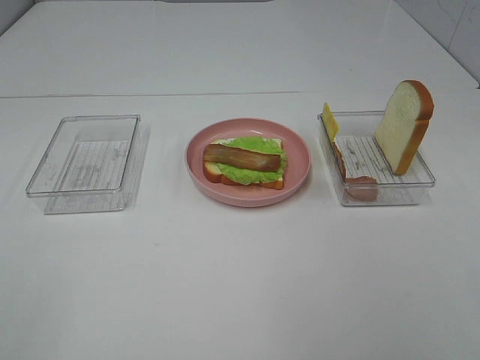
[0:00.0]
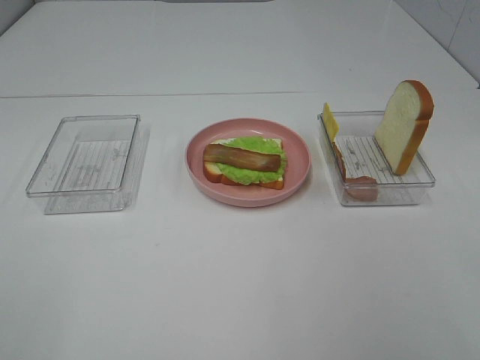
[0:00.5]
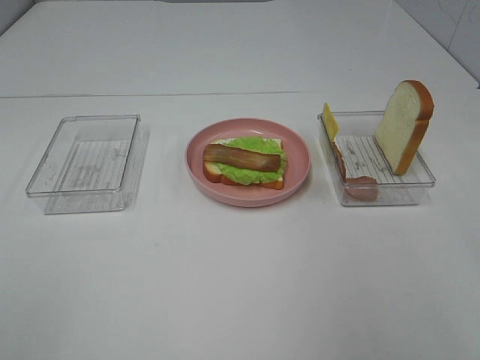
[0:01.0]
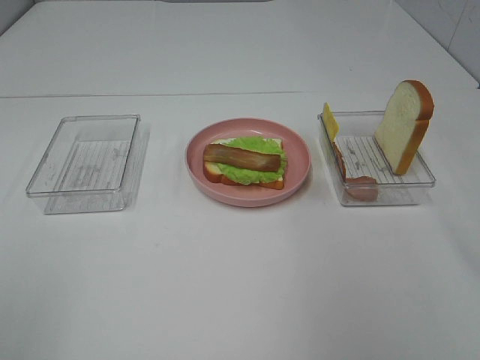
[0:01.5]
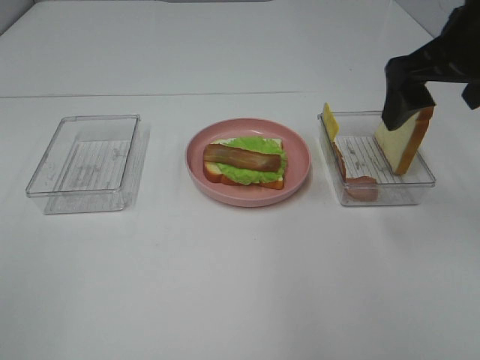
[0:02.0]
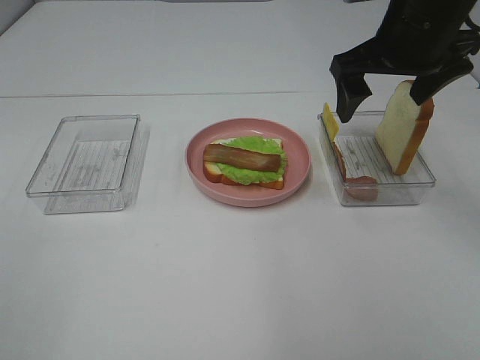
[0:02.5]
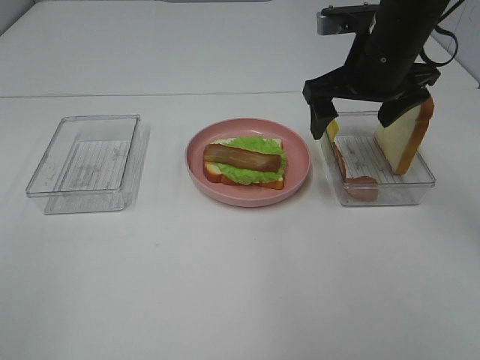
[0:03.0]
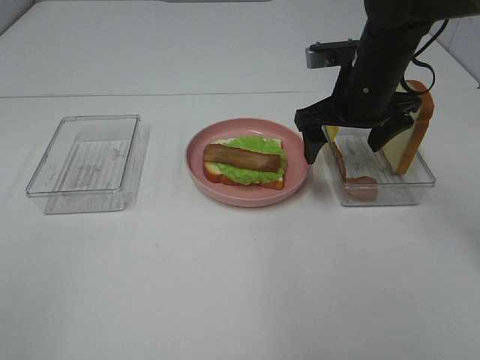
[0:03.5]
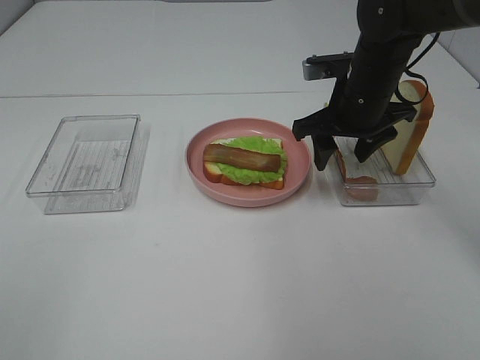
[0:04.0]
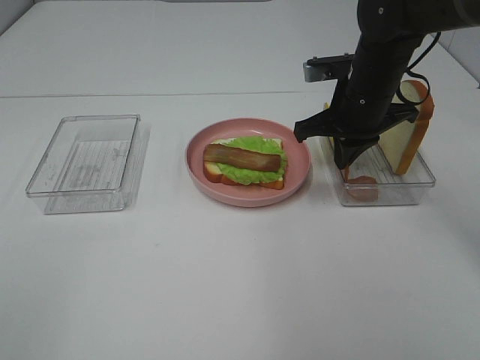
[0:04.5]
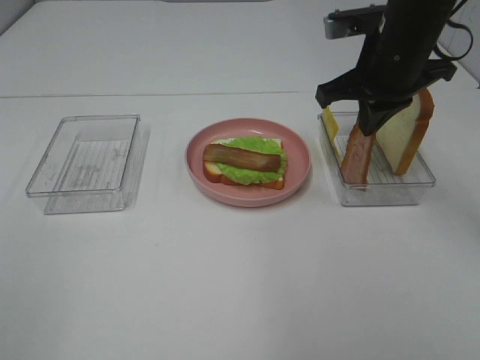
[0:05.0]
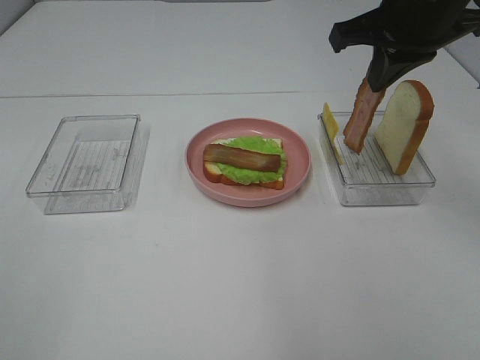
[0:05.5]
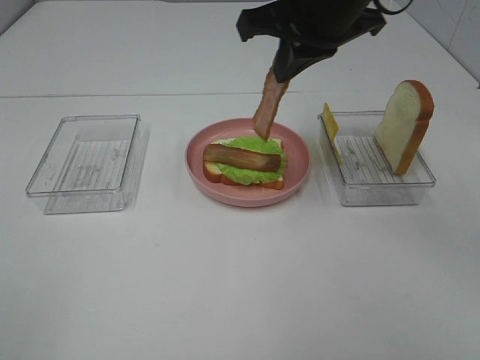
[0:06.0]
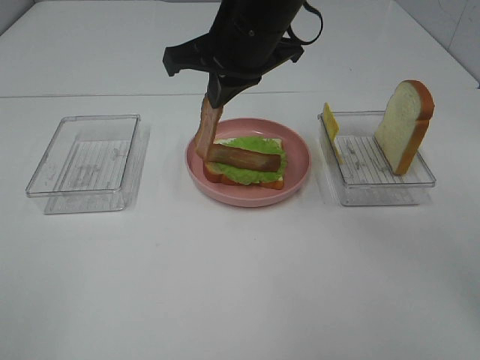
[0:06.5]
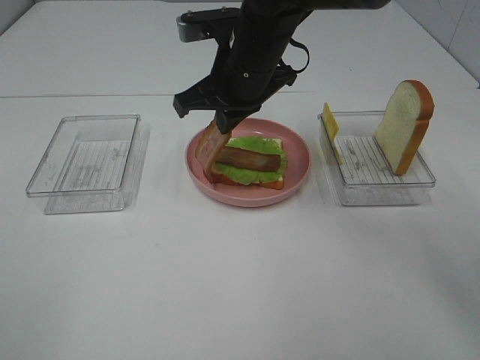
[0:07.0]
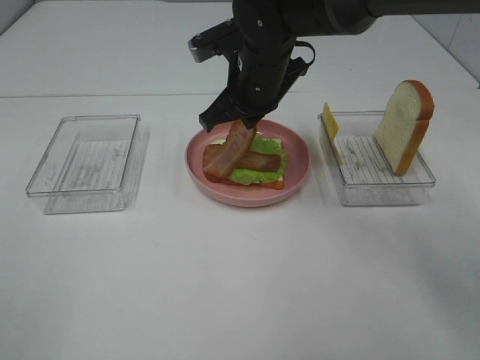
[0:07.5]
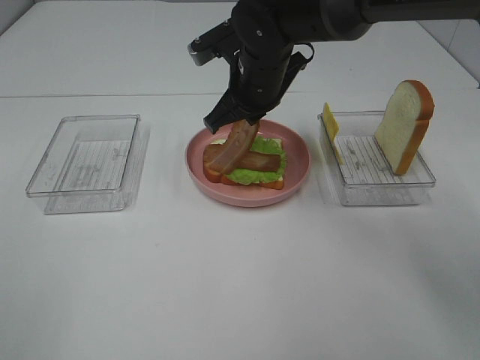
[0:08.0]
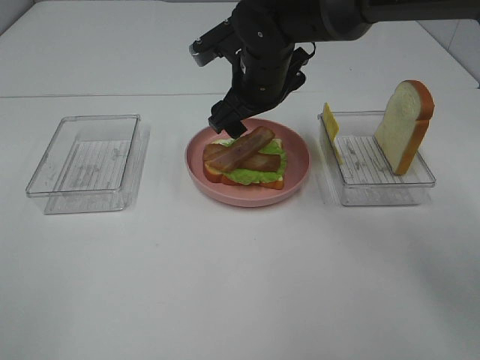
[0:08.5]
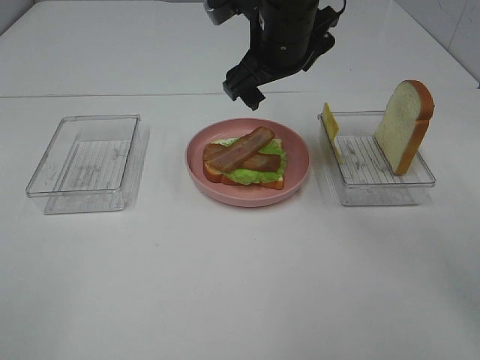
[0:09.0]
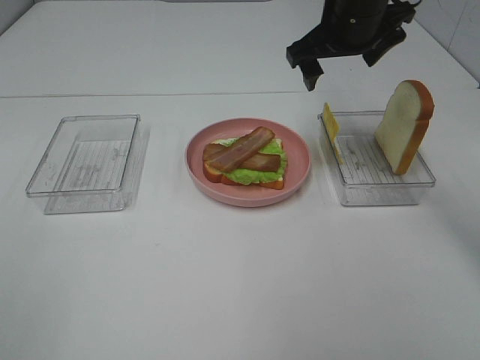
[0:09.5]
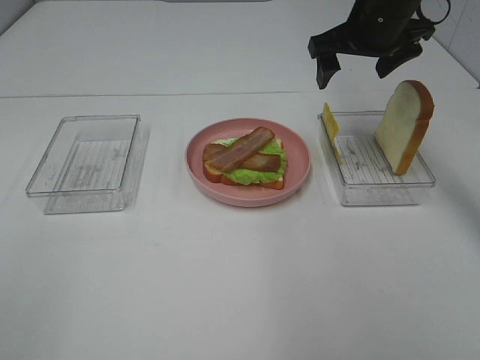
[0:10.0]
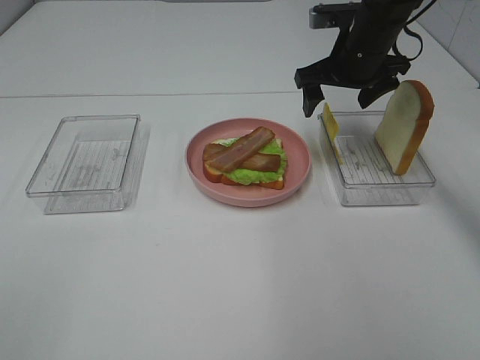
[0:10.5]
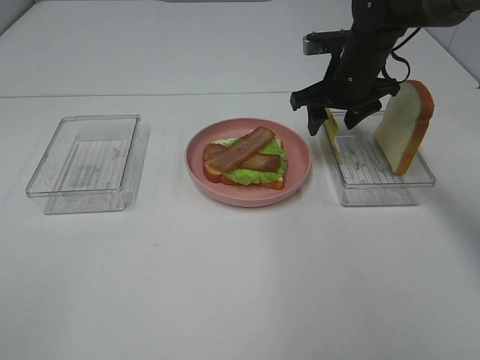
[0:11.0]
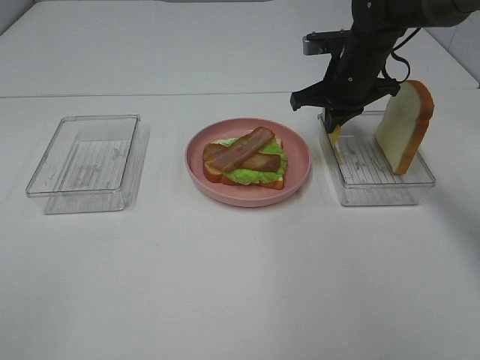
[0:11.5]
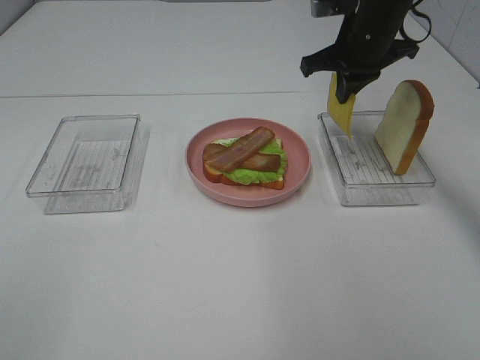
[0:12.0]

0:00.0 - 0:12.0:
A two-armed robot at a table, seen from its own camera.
Task of the whole recording: Make sandwiches.
Step, 0:00.0 - 0:04.0: Right hand:grab the bacon.
Step, 0:04.5 - 0:08.0: Right hand:place bacon on bacon.
Step, 0:08.5 - 0:11.5: Right hand:grab the cheese slice.
0:00.0 - 0:02.0: The right gripper goes about 30 cm forward.
0:02.0 - 0:04.0: The right gripper shifts roughly 15 cm downward, forward and to the left, and closes.
0:04.0 - 0:06.0: The right gripper heads upward and to the left, covering approximately 15 cm, and closes.
0:06.0 - 0:08.0: The right gripper goes roughly 15 cm downward, to the left and forward.
0:08.0 - 0:10.0: The right gripper heads to the right and upward, covering about 15 cm, and opens.
0:10.0 - 0:12.0: The right gripper travels downward and back again, approximately 10 cm each way, and closes up.

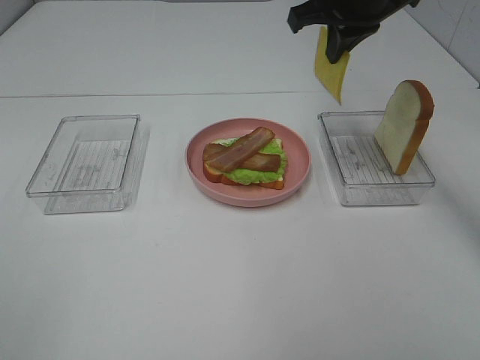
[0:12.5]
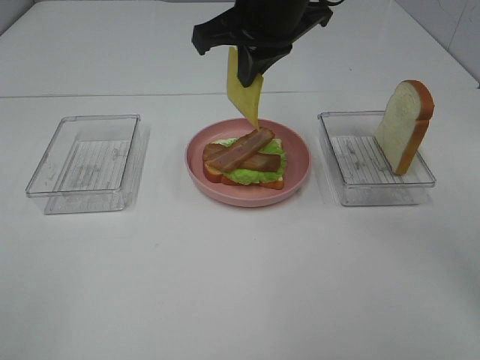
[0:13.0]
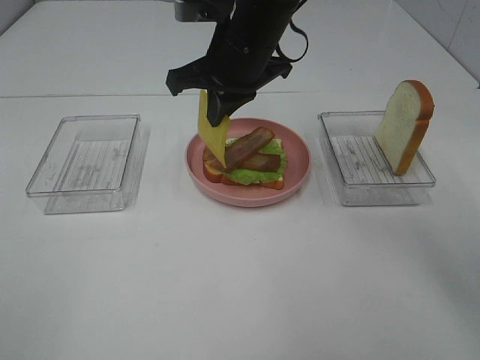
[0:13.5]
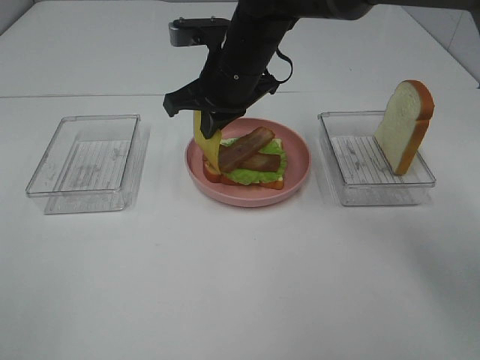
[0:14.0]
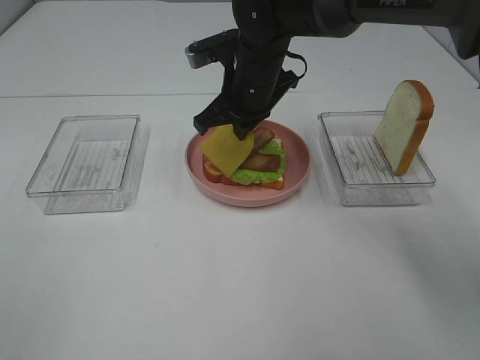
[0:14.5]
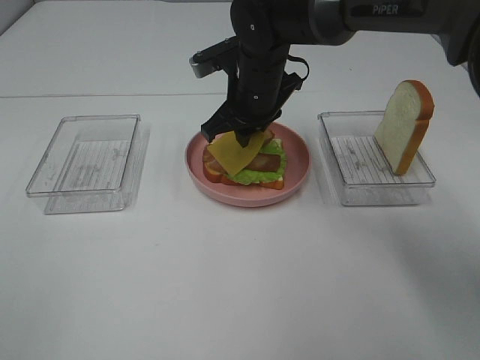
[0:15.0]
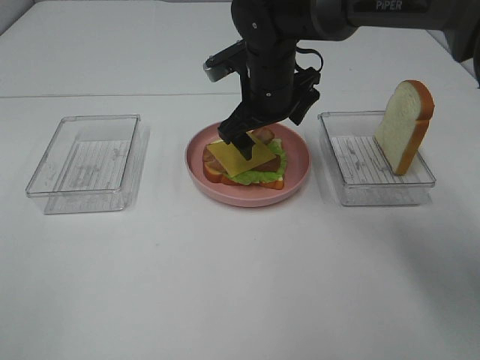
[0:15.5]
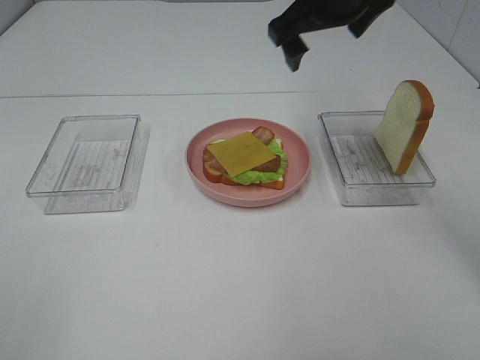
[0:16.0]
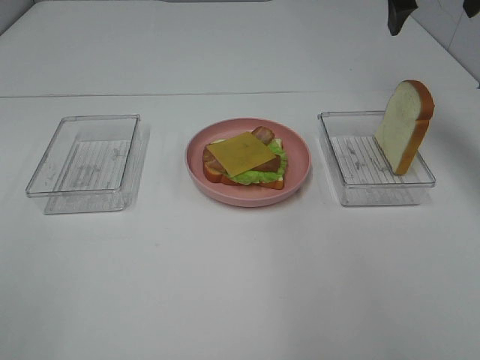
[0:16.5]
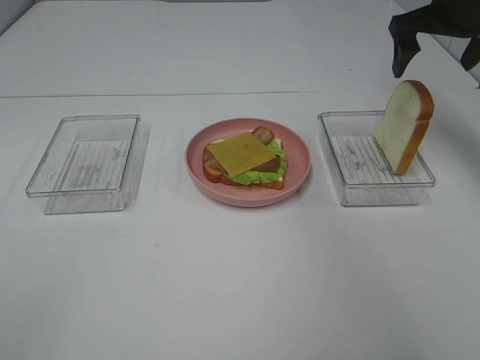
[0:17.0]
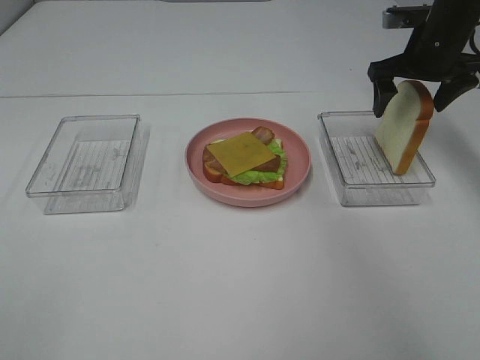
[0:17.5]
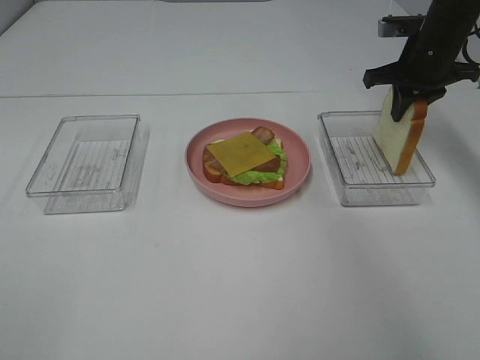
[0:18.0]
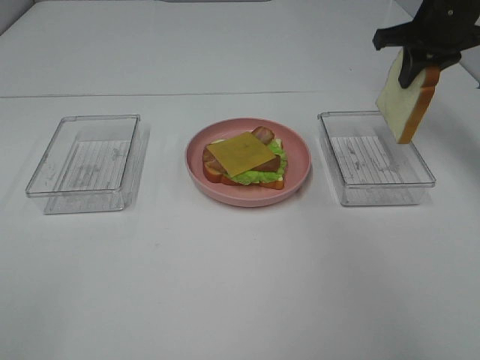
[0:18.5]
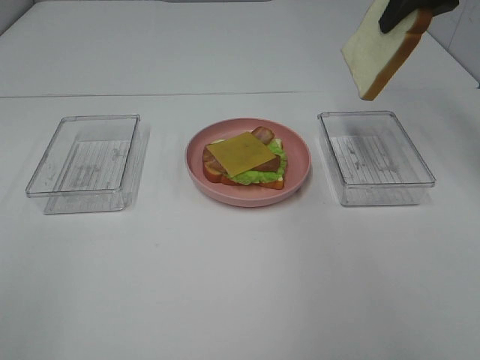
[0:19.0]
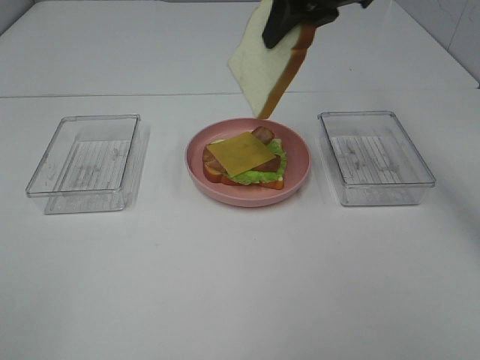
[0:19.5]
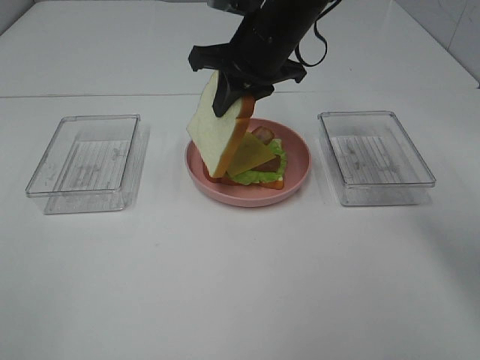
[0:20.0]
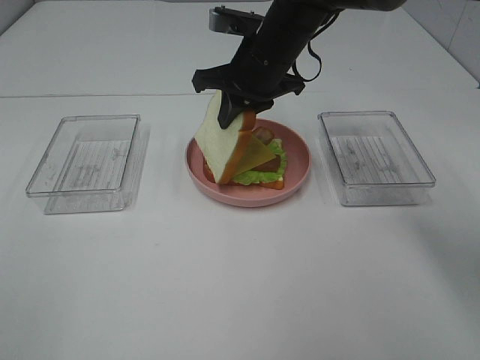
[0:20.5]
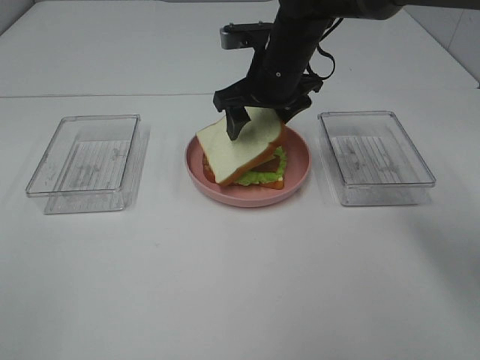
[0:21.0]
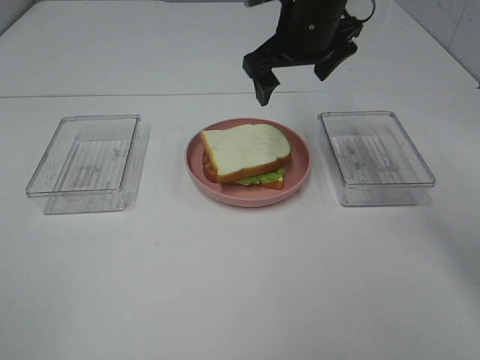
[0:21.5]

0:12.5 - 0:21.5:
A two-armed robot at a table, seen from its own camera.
Task of the whole recording: Make sandwiches.
Step, 0:12.5 - 0:15.0: Right hand:place the cheese slice on top of the bacon.
Step, 0:15.5 - 0:18.0: Right hand:grab the bread slice.
Step, 0:18.5 - 0:21.0: Right hand:place the bread slice on the cheese slice.
0:12.5 - 0:14.5: The right gripper is displaced downward and to the left by approximately 15 cm.
0:14.5 - 0:17.0: The right gripper travels to the right by roughly 25 cm, and opens up.
0:17.0 - 0:19.5: The right gripper goes some 15 cm to the left, and closes up.
0:19.5 - 0:21.5: The right gripper shifts some 5 cm downward, and opens its fingers.

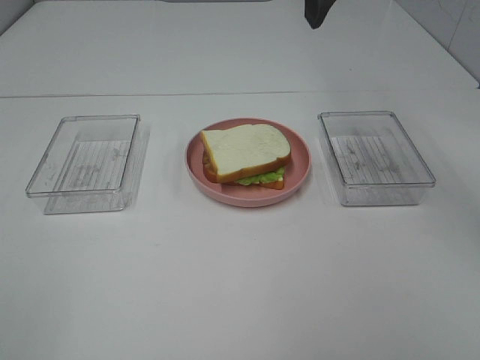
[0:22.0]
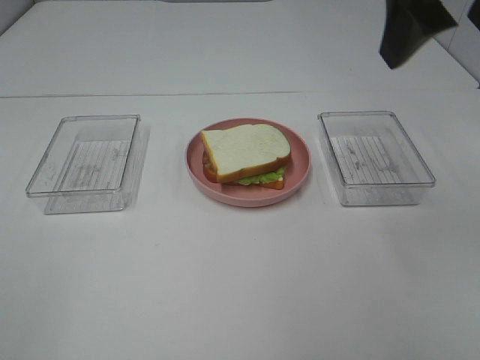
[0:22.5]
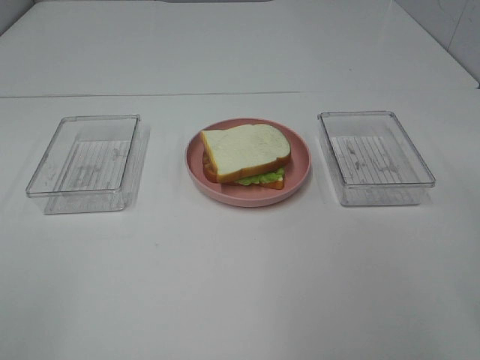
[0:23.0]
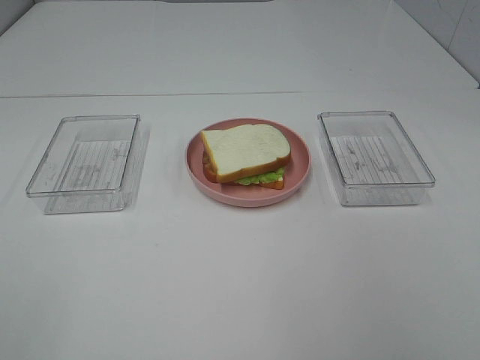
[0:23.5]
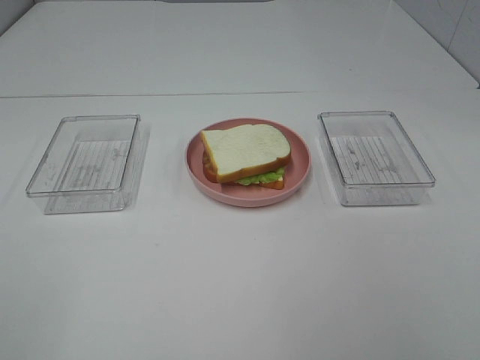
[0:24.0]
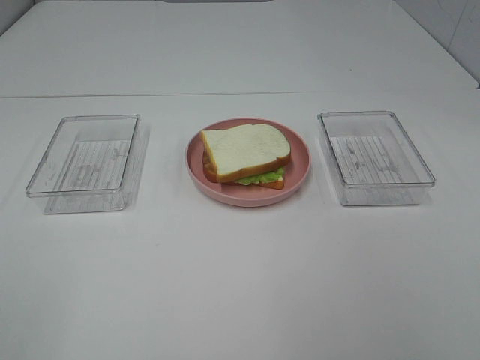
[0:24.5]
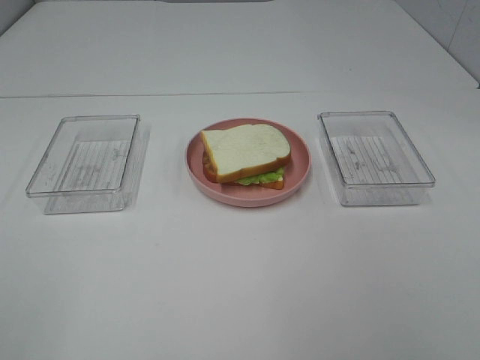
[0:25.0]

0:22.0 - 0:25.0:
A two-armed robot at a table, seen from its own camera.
Task of the whole recording: Make sandwiches.
0:22.0 - 0:23.5: The right gripper moves backward and to the right, approximately 35 cm.

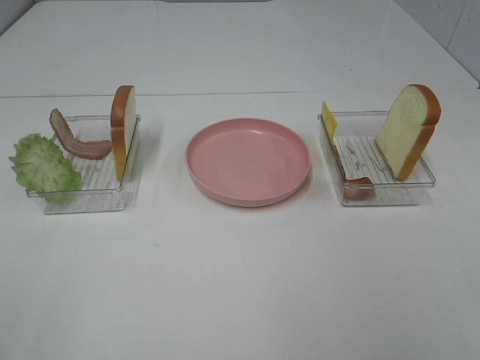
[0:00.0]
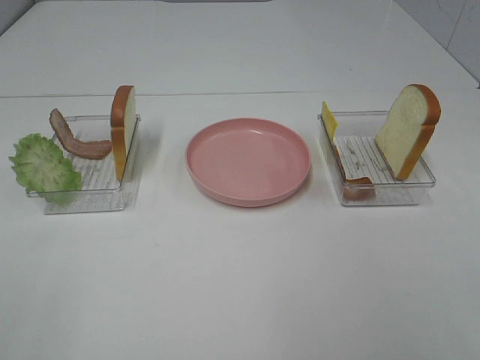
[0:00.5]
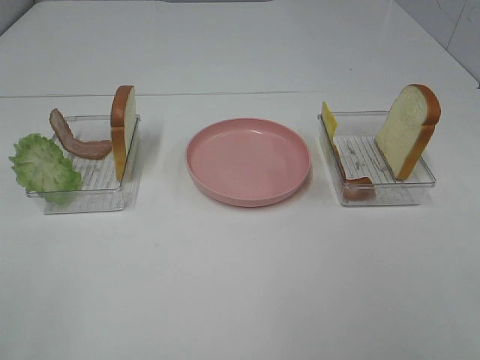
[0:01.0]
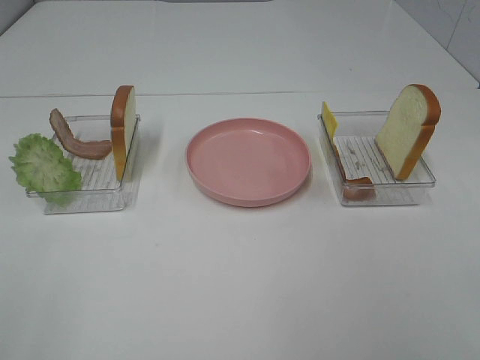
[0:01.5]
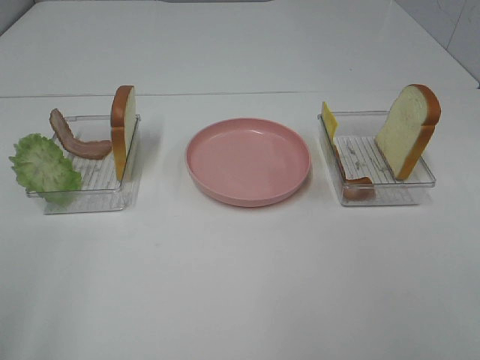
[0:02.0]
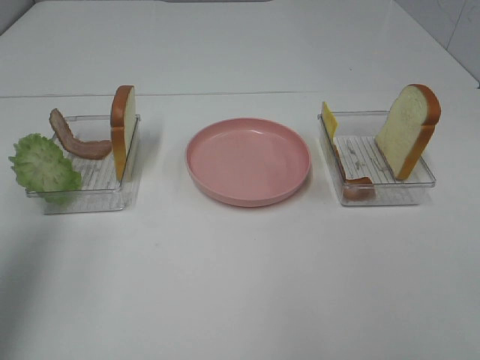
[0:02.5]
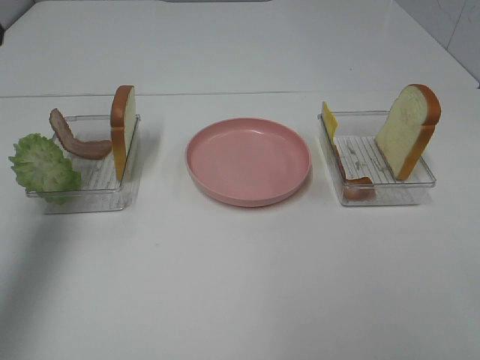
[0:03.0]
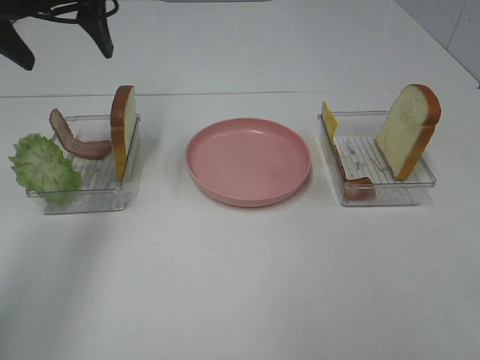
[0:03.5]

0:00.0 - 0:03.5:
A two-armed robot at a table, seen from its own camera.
Task of the whole recording: Make sandwiches.
0:02.0 - 0:03.5: The left gripper goes approximately 35 cm forward.
